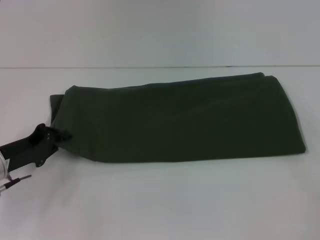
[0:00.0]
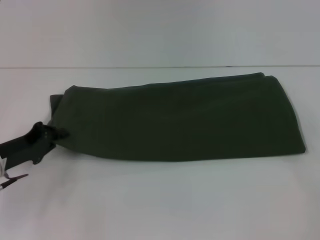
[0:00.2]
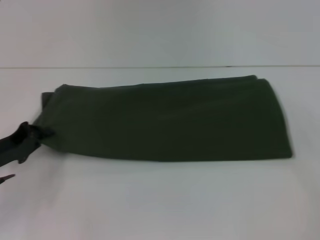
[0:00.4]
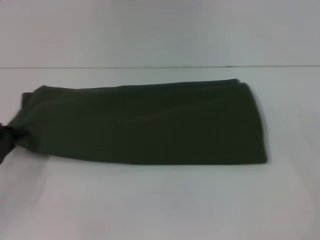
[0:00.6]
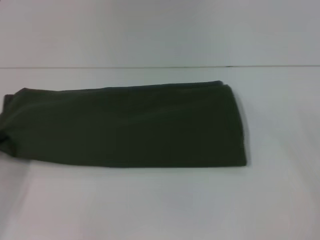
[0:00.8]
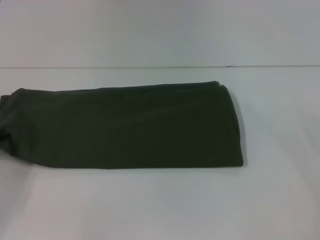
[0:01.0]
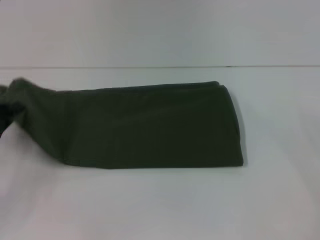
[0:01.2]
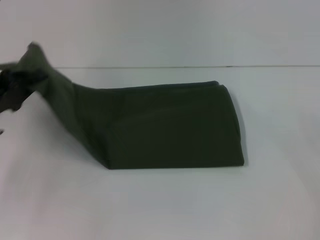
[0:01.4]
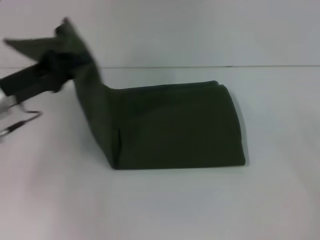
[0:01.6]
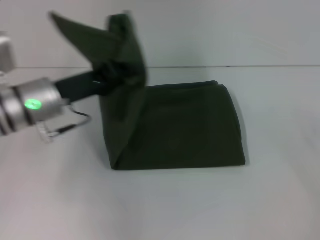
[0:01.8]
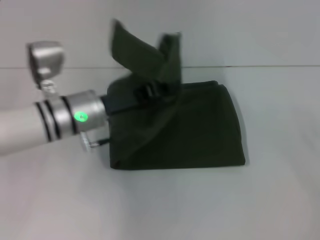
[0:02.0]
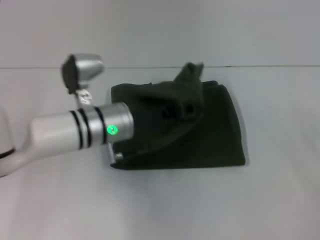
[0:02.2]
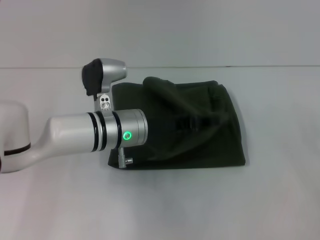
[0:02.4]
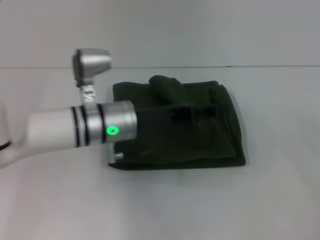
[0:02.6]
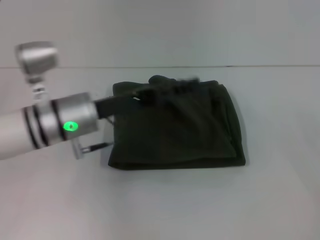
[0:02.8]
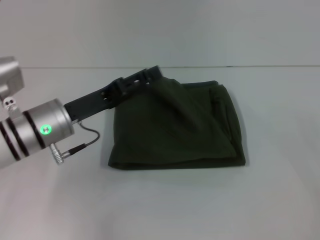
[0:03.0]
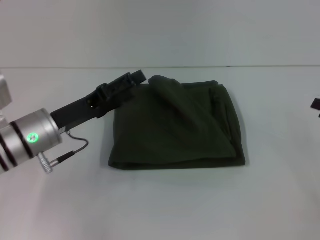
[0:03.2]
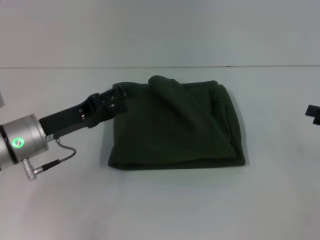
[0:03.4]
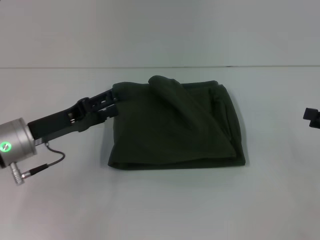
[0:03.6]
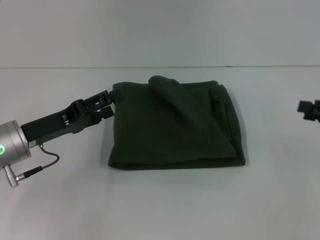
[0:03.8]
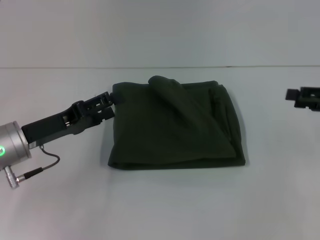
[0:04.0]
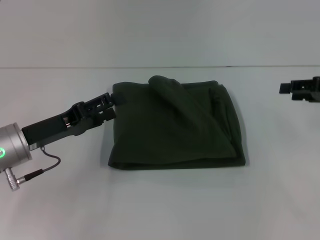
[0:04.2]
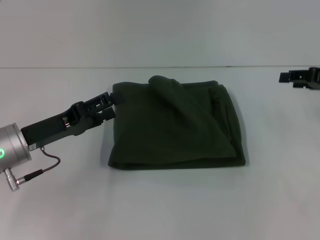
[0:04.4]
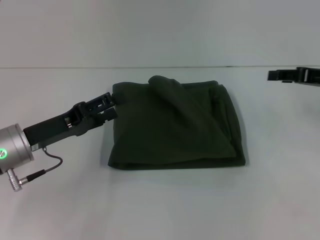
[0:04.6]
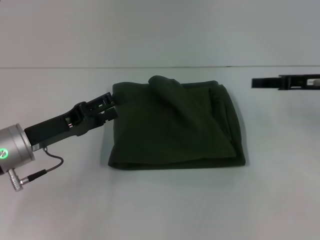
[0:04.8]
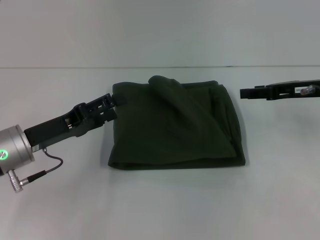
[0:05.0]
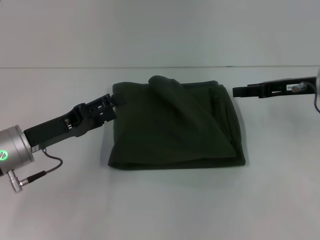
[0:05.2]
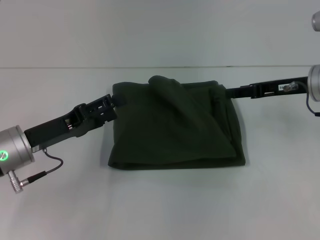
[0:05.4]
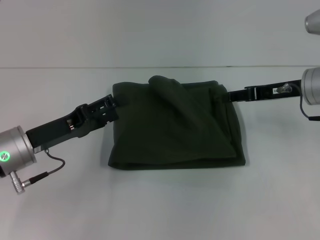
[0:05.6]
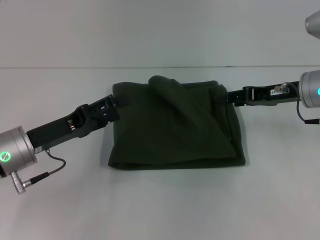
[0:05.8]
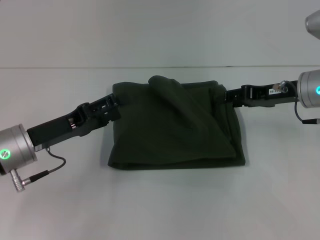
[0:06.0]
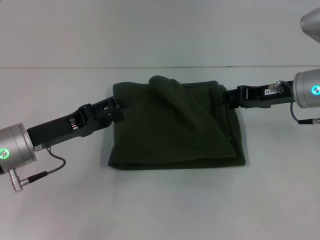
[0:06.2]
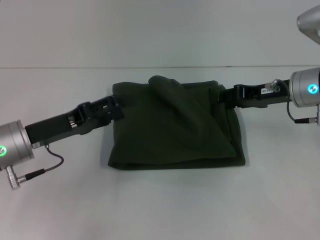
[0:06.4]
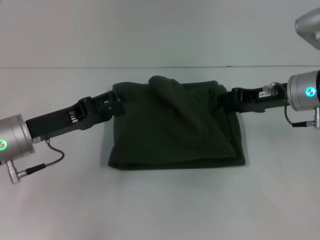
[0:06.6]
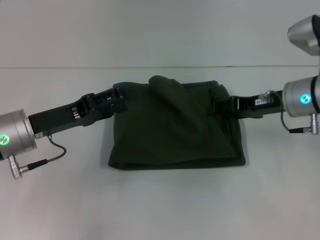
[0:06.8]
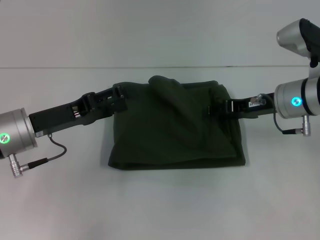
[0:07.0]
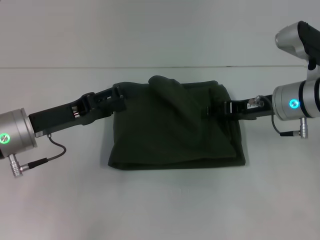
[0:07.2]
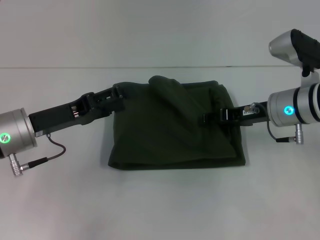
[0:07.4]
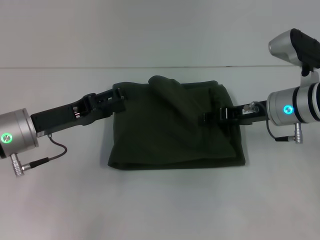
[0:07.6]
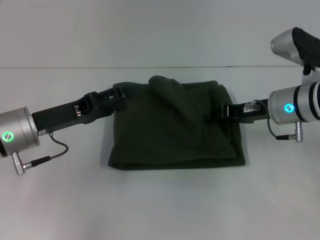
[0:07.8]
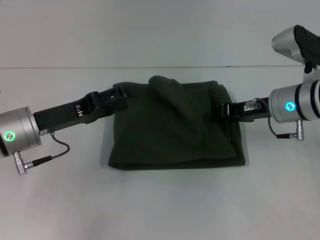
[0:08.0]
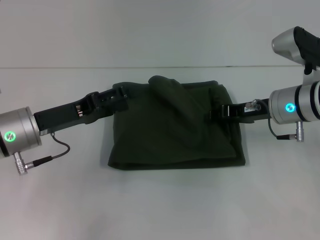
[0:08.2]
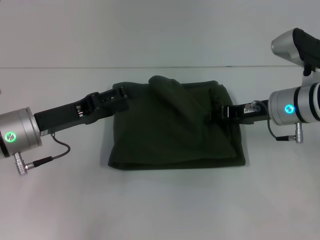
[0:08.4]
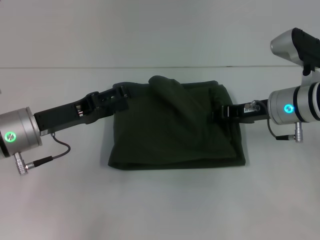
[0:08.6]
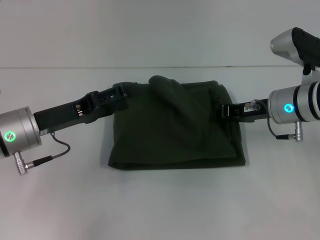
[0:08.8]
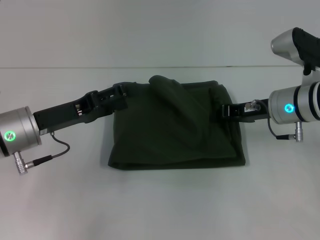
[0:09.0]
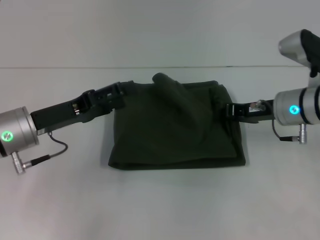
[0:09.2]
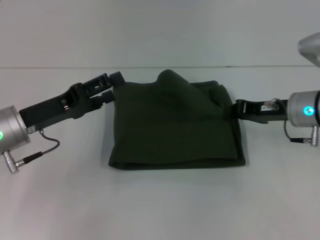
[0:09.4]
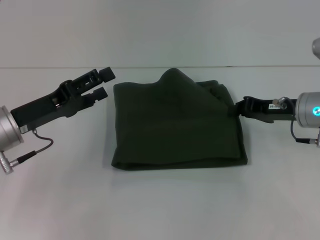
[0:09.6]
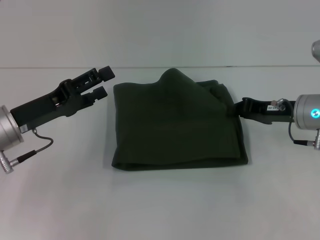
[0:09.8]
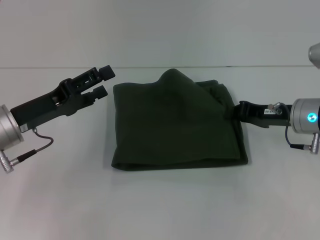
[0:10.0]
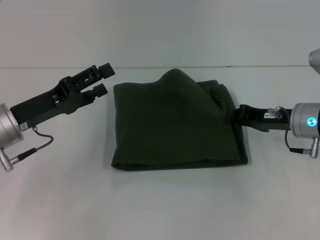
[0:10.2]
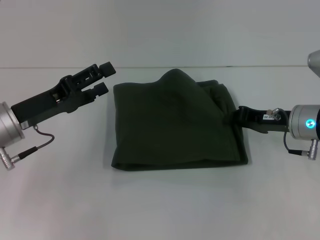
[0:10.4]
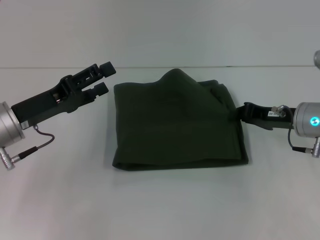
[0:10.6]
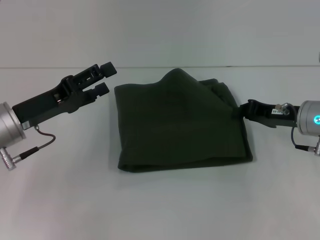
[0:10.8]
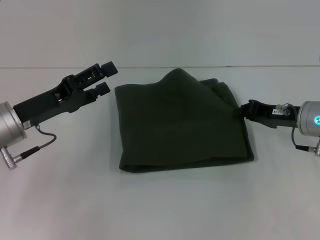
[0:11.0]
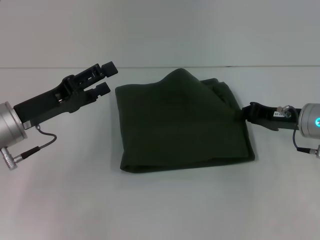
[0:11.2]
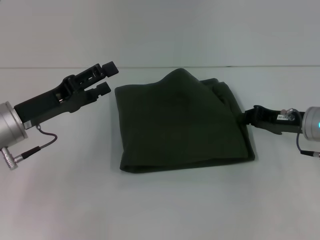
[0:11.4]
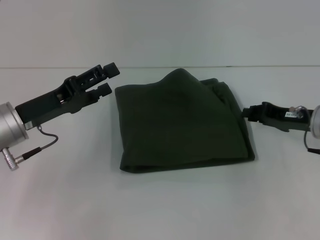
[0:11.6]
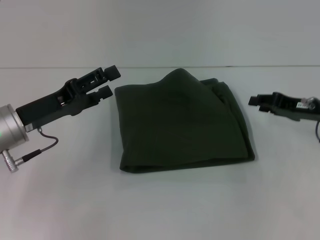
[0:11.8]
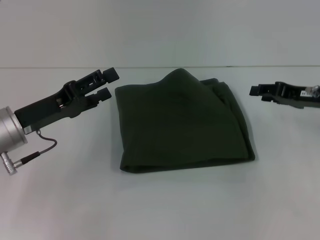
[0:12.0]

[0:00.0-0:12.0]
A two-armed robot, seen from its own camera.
Step, 0:00.0 to 0:02.8: Fold the clothes with your left hand.
0:00.0 to 0:01.6: The left gripper is displaced upward by some 10 cm, and reaches about 5 cm to the left, then returns.
0:01.6 to 0:03.0: The left gripper shifts about 10 cm to the right, and opens up.
0:03.0 to 0:04.4: The left gripper goes roughly 5 cm to the left, while the right gripper is displaced forward, upward and to the left by about 10 cm.
0:04.4 to 0:06.0: The right gripper is displaced to the left by about 10 cm.
0:06.0 to 0:07.6: The grippers stay close to where they were, moving slightly.
0:07.6 to 0:09.0: The right gripper closes.
0:09.0 to 0:10.4: The grippers make only small movements.
0:10.4 to 0:12.0: The right gripper goes approximately 5 cm to the right, and opens up.

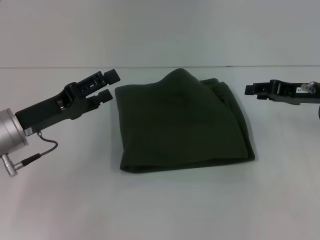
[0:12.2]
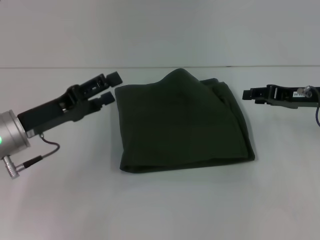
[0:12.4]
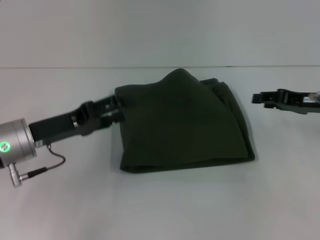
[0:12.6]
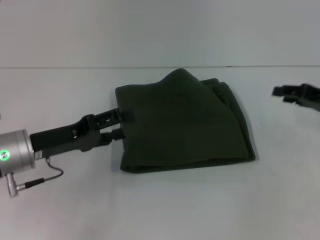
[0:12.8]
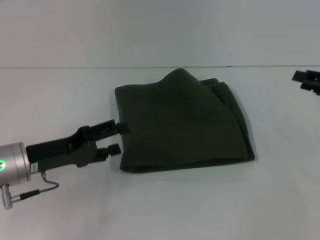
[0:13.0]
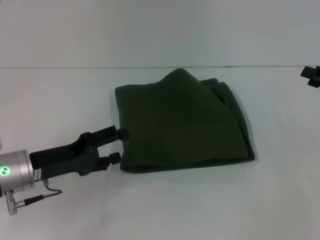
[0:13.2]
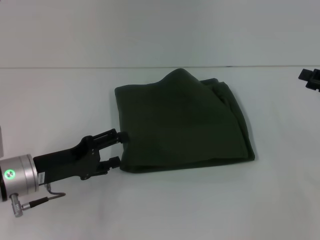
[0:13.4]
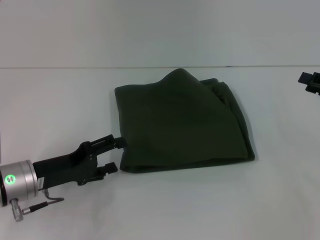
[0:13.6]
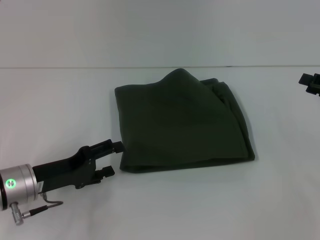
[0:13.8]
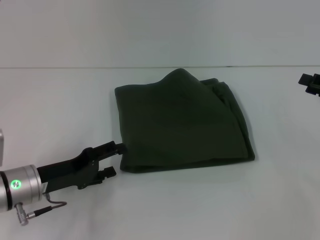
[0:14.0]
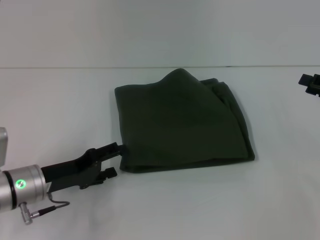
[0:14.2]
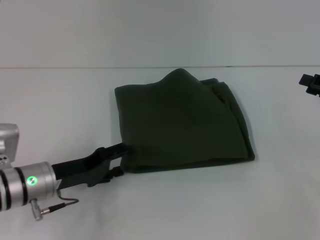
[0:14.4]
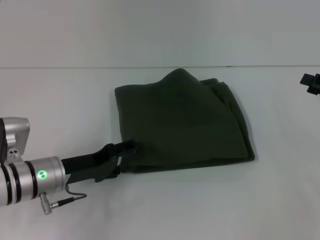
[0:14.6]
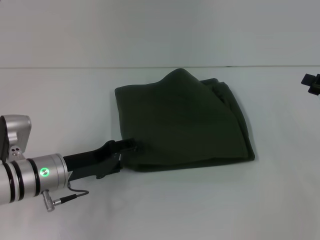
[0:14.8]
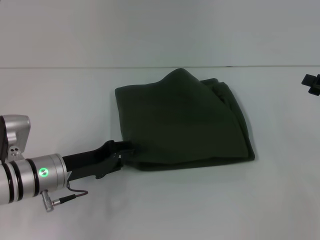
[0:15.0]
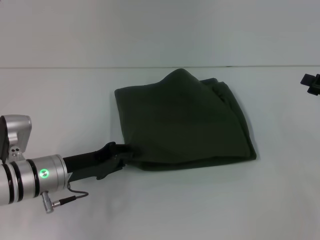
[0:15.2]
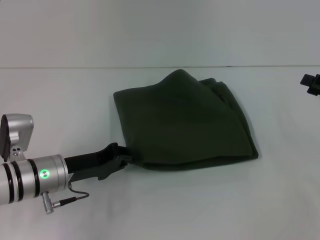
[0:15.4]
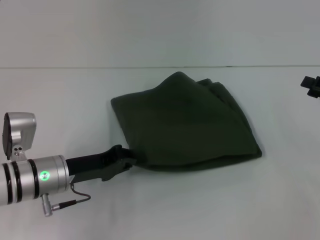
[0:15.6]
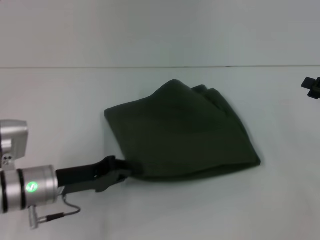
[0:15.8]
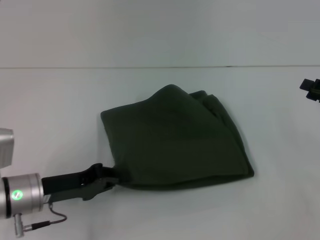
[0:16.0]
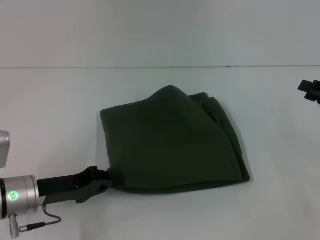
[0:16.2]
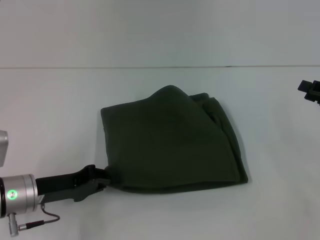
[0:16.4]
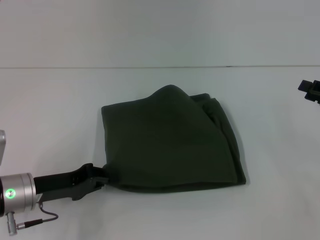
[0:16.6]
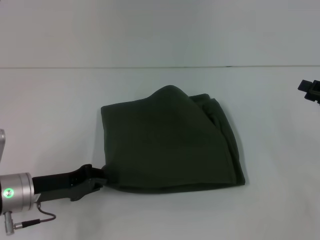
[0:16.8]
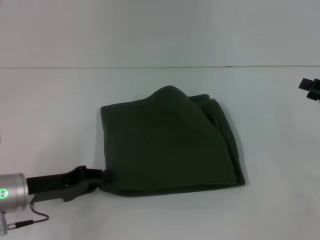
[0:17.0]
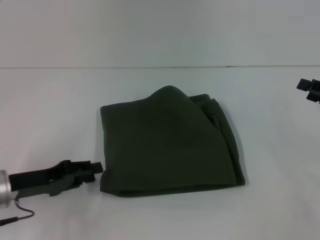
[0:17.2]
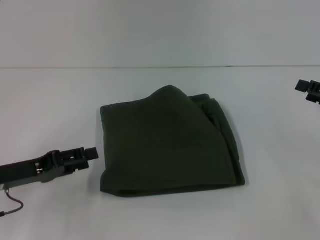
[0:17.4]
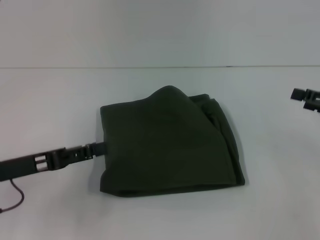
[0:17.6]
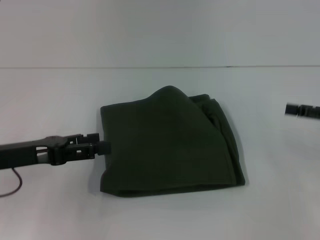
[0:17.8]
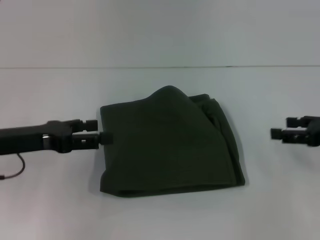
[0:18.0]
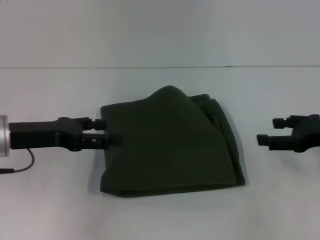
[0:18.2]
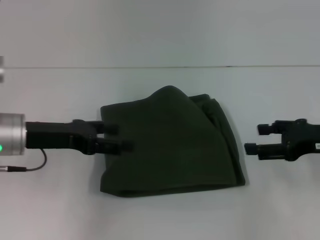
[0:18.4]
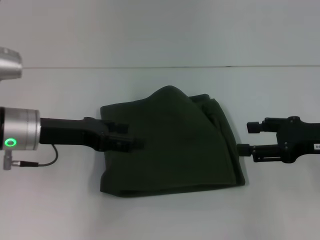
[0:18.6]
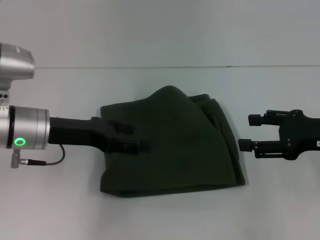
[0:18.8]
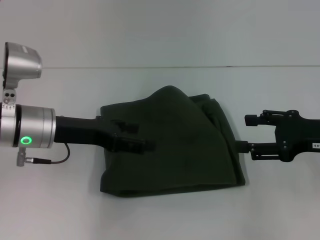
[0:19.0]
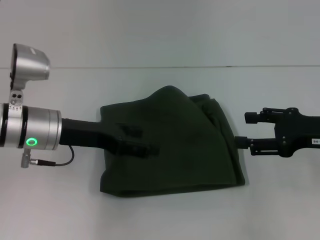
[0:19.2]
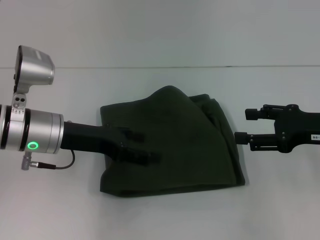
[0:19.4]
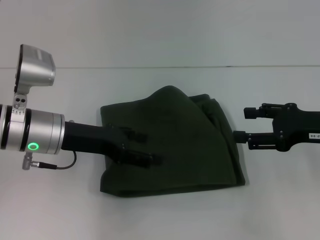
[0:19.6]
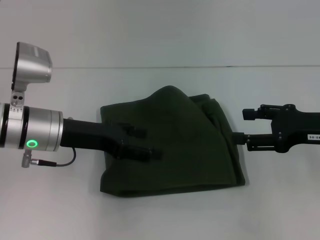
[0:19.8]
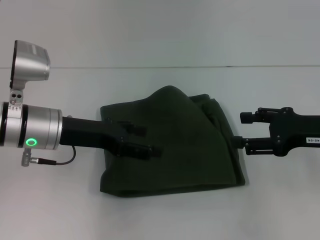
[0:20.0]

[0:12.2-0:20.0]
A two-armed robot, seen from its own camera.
0:12.2 to 0:13.8: The left gripper shifts approximately 5 cm downward. Meanwhile the right gripper moves to the right and backward, about 10 cm.
0:13.8 to 0:15.4: The left gripper closes.
0:15.4 to 0:16.8: The left gripper shifts by approximately 5 cm.
0:16.8 to 0:18.4: The left gripper travels upward by roughly 10 cm, and opens up; the right gripper travels to the left by about 5 cm, and opens its fingers.
0:18.4 to 0:20.0: There are only small adjustments of the grippers.
